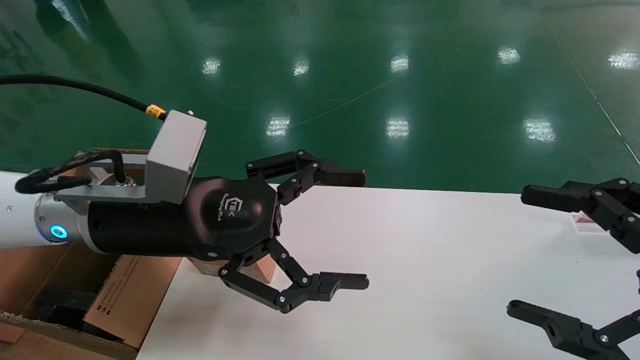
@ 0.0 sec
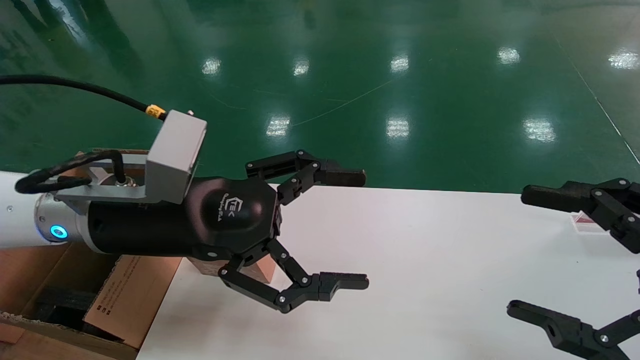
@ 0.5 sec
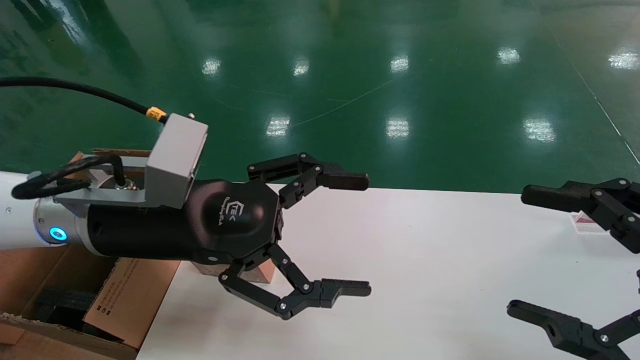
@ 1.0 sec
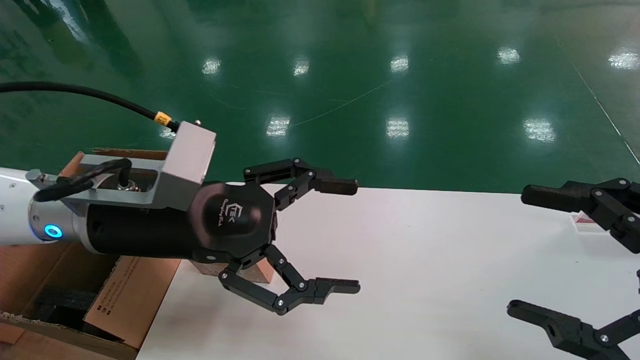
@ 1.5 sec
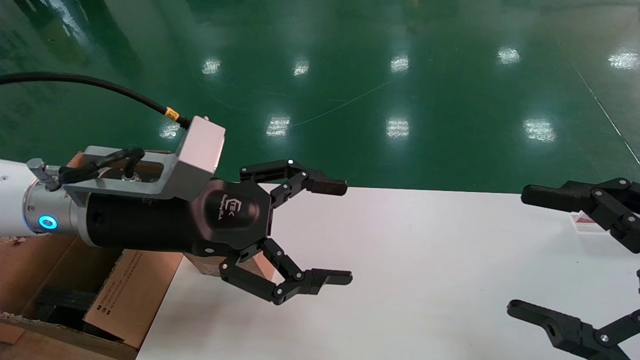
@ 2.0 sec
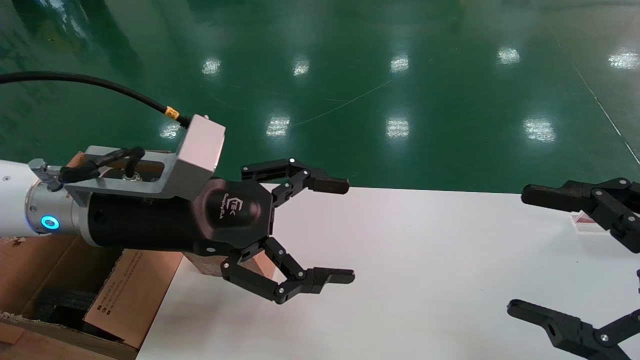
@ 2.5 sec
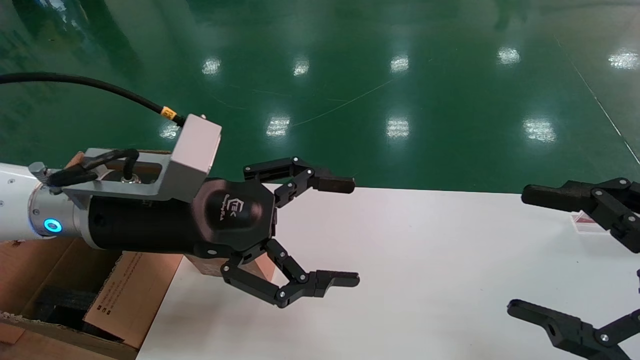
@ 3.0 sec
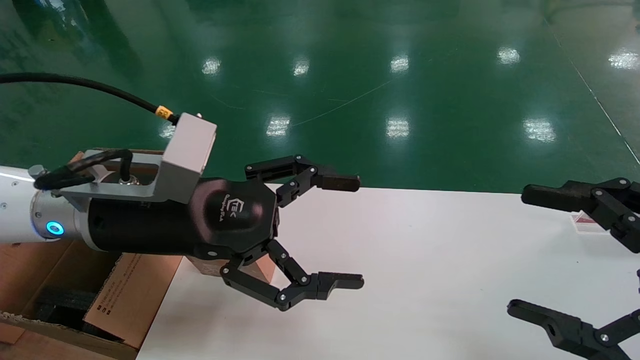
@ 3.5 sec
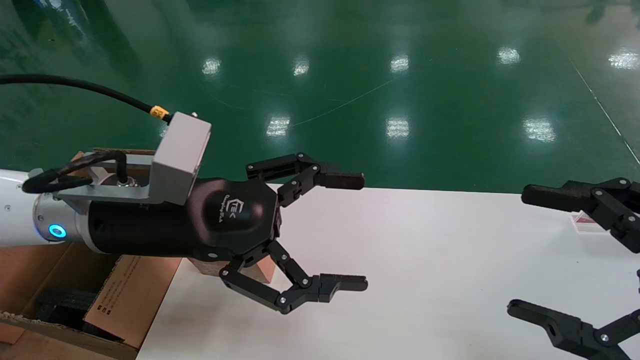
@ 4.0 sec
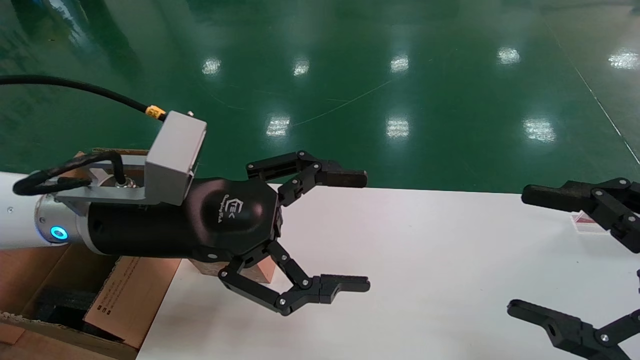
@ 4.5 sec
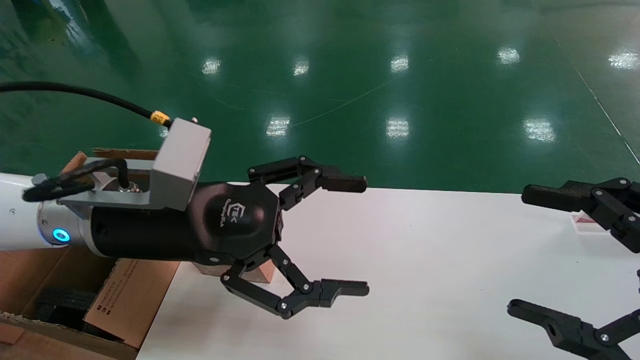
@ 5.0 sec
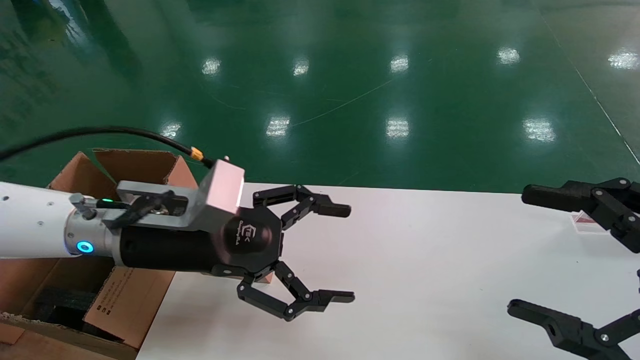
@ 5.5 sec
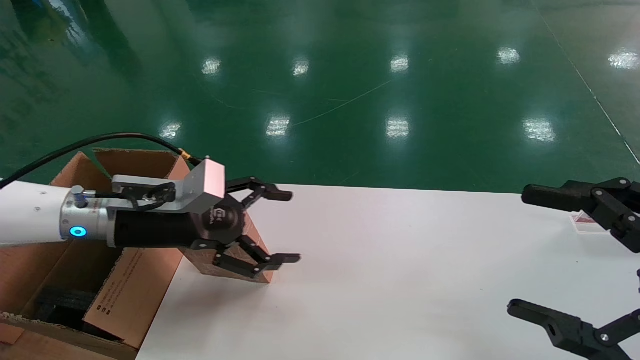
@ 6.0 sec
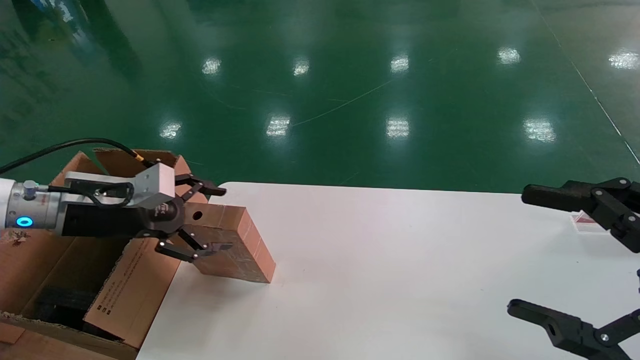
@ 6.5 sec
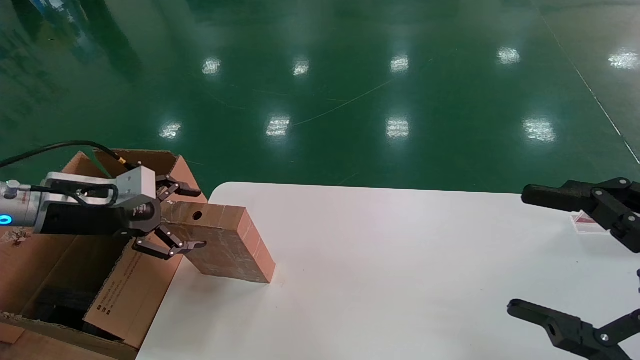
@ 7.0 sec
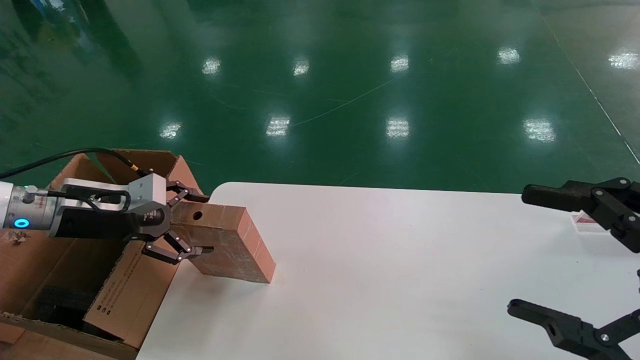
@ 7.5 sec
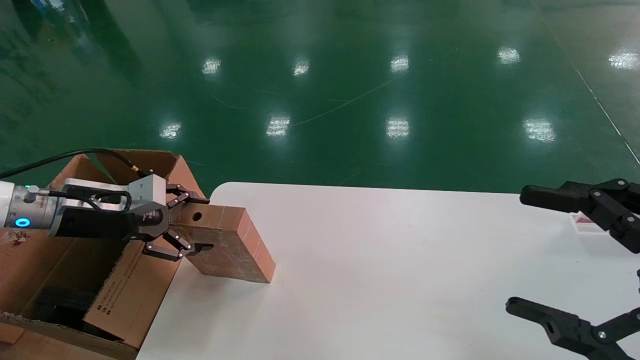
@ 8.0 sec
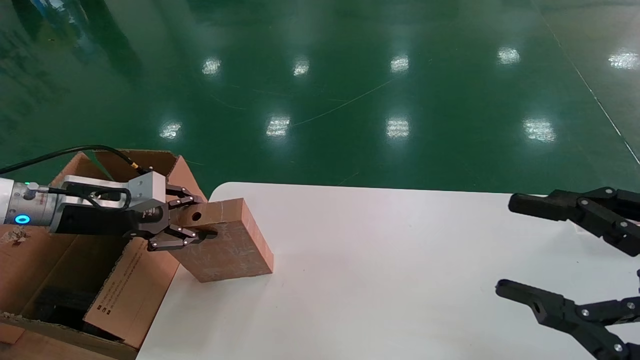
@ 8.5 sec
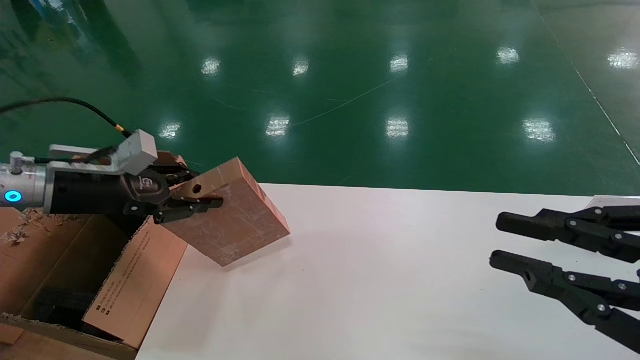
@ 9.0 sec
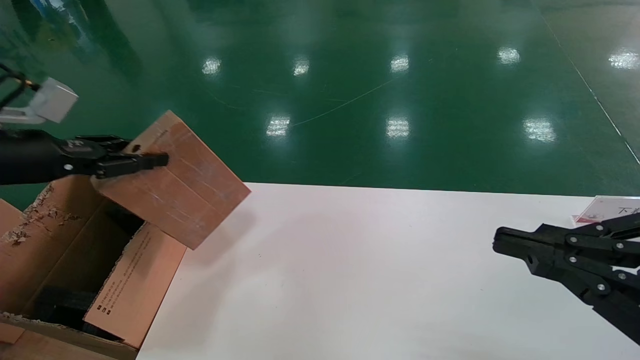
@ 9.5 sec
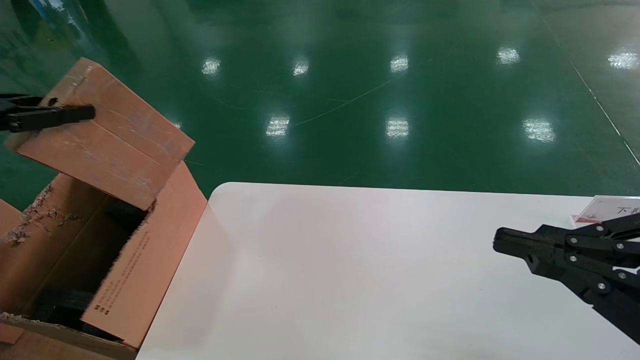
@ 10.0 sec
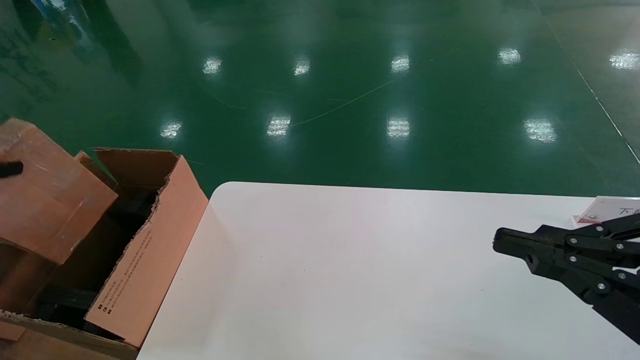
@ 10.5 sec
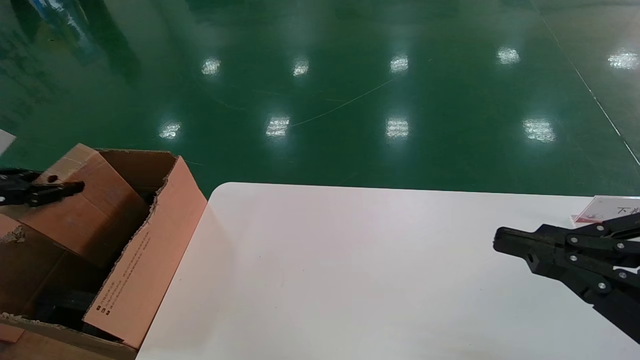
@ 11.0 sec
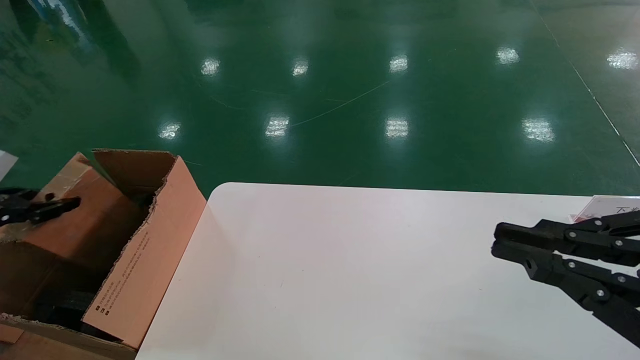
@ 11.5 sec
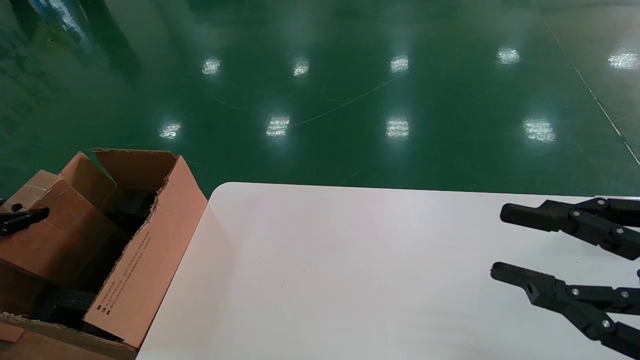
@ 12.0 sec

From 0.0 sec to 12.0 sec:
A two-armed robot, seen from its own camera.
Task of the whole recording: put the box on the table into the big box.
Step, from 5.5 sec to 8.5 sec: Pick up the mouse and the power cord paper box.
From 0.0 sec to 4.0 sec: The grippers make only small movements.
From 4.0 sec to 6.0 sec: The left gripper is displaced to the left, forward and downward by approximately 10 cm.
From 6.0 sec to 8.0 sec: The left gripper goes about 15 cm to the left.
From 8.0 sec to 10.0 sec: The left gripper travels upward, backward and to the left by roughly 20 cm, and closes its fingers. The right gripper closes up.
From 10.0 sec to 12.0 sec: The left gripper heads downward and to the left, covering about 20 cm.

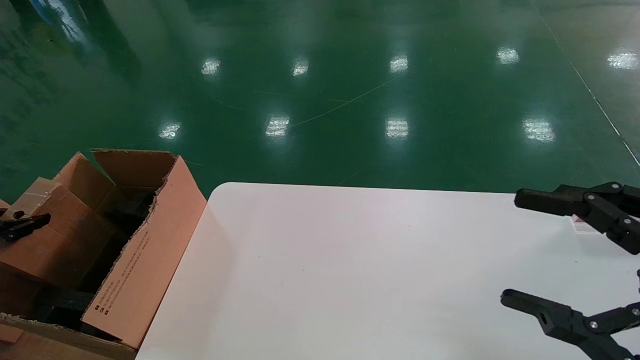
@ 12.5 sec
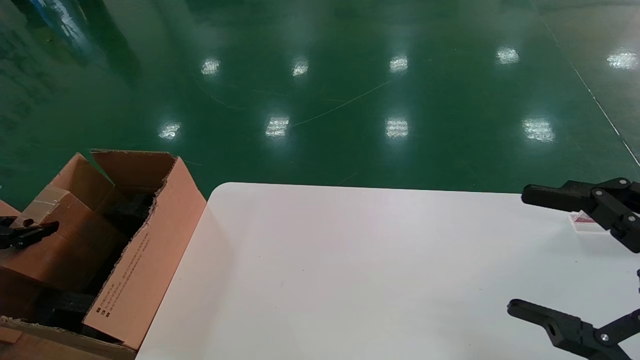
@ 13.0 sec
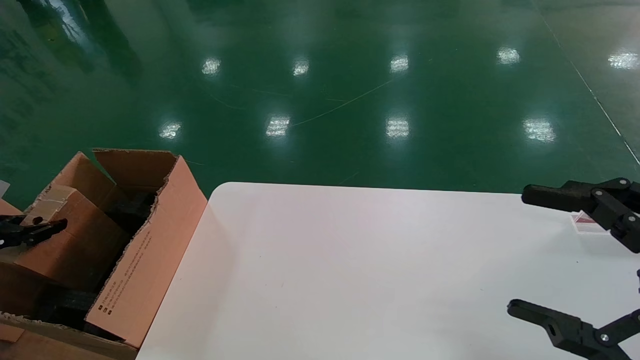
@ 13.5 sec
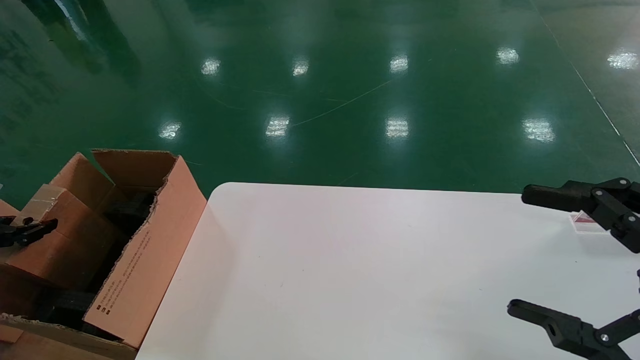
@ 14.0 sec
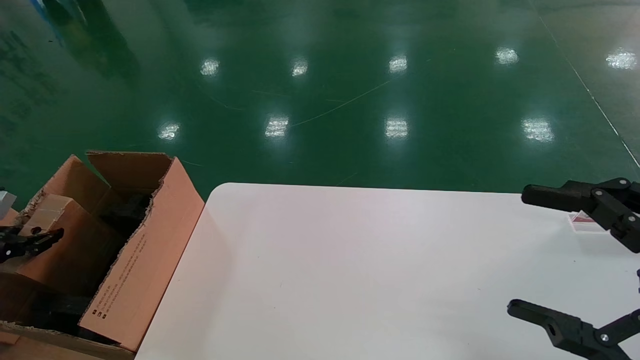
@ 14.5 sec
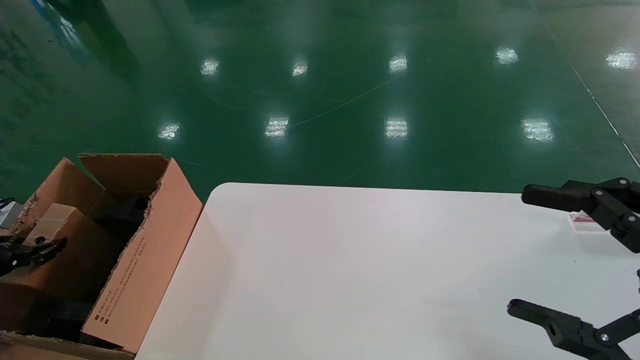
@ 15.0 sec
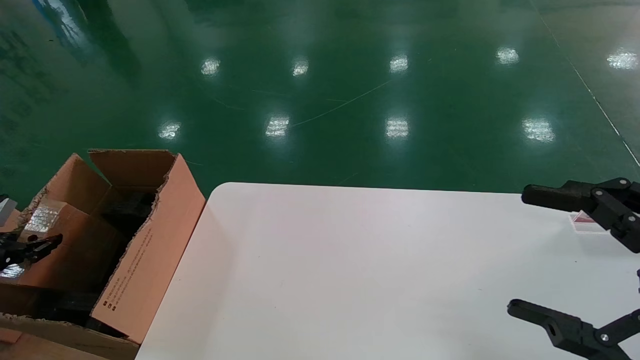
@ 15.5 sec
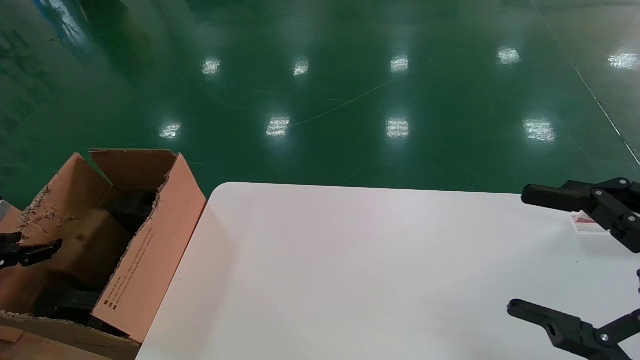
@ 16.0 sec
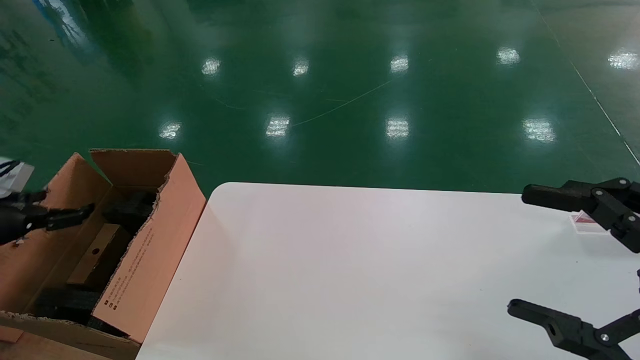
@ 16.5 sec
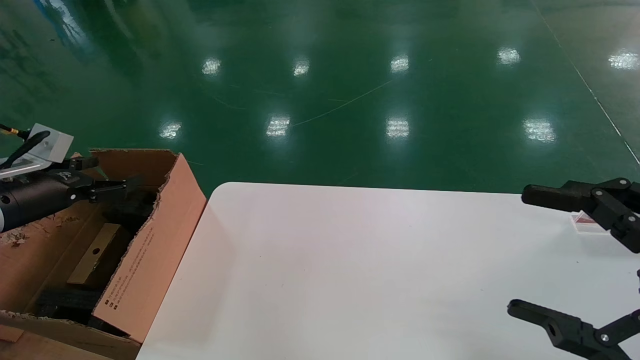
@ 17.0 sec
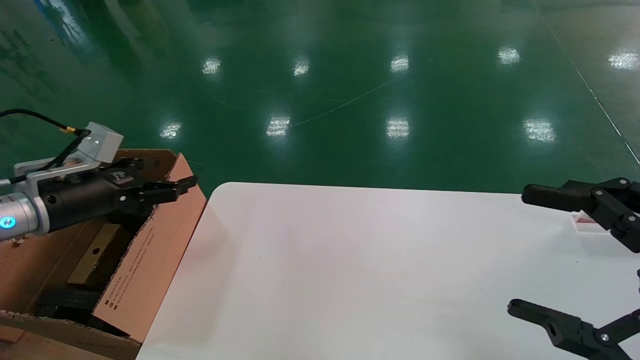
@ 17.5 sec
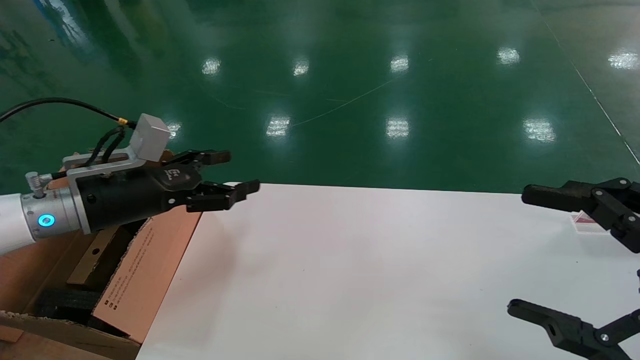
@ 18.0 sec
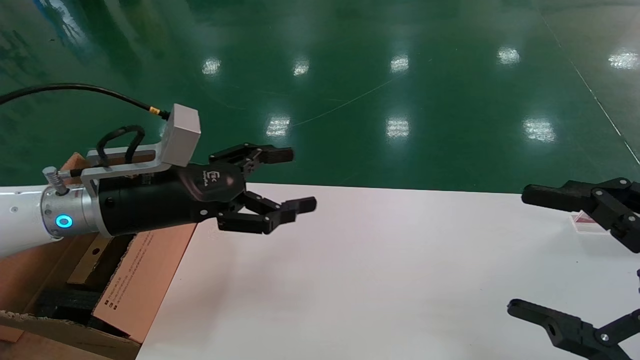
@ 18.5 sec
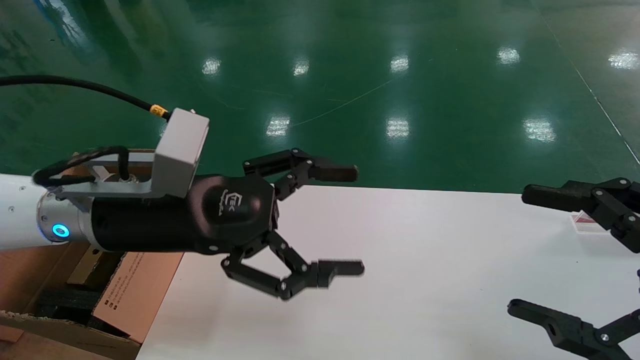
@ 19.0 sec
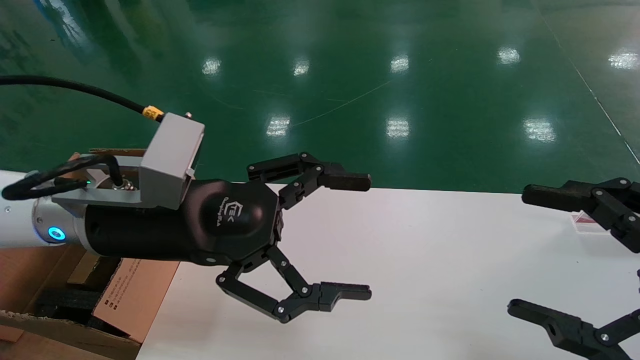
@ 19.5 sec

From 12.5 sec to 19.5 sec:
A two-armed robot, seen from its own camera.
Task of the whole recording: put the box on the table into the big box.
Step, from 12.5 sec to 16.0 sec: Place the mouse and the power cord paper box into the container.
From 12.5 sec to 14.5 sec: The left gripper goes approximately 5 cm downward.
From 14.5 sec to 16.0 sec: The left gripper opens up.
From 16.0 sec to 17.5 sec: The left gripper goes roughly 20 cm to the right, upward and forward, and opens up.
From 17.5 sec to 19.5 sec: The left gripper heads to the right, covering about 25 cm.
